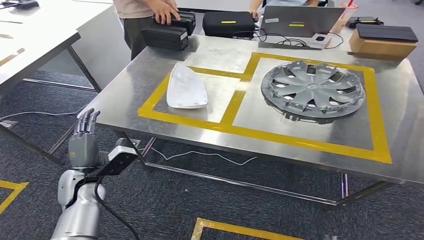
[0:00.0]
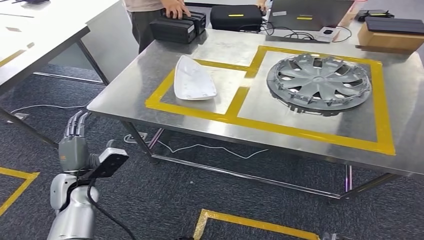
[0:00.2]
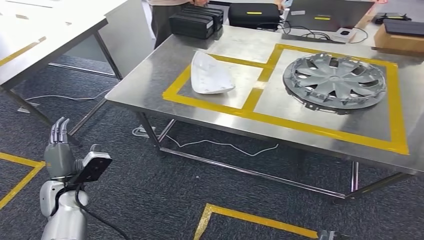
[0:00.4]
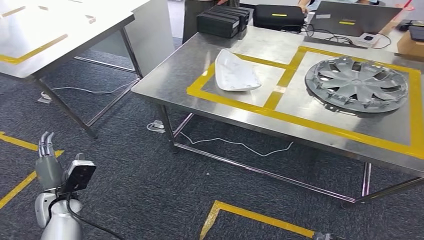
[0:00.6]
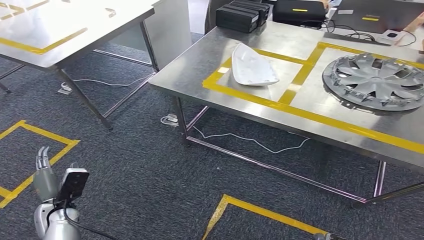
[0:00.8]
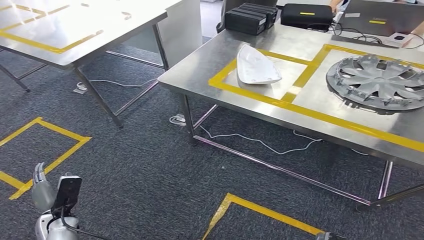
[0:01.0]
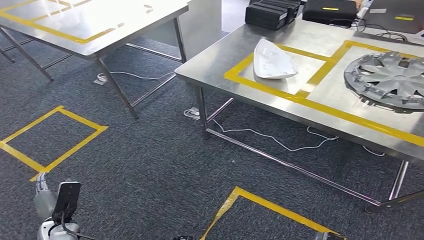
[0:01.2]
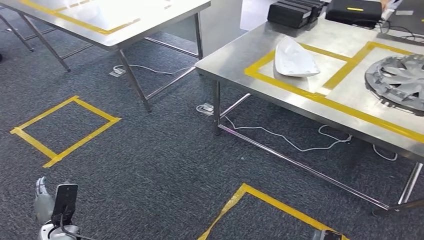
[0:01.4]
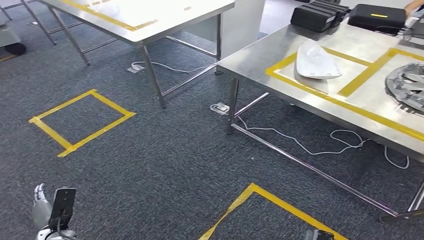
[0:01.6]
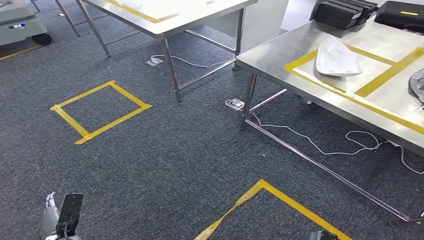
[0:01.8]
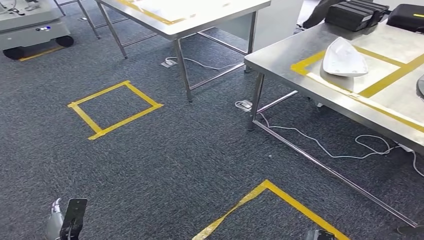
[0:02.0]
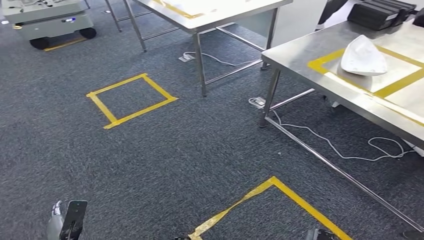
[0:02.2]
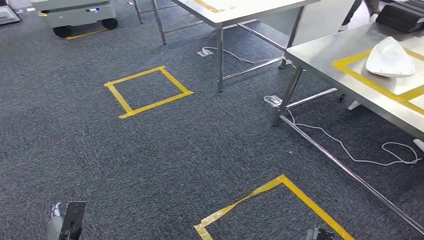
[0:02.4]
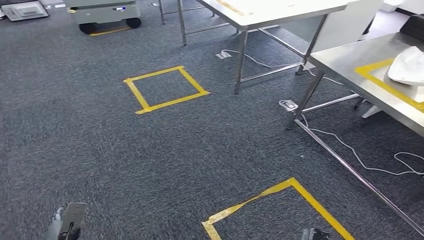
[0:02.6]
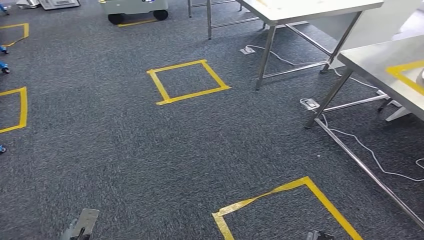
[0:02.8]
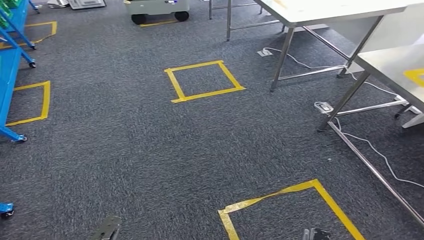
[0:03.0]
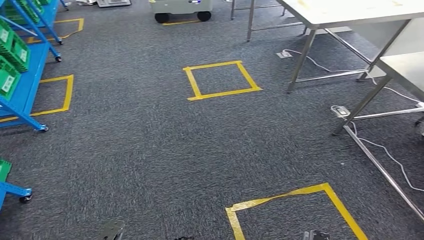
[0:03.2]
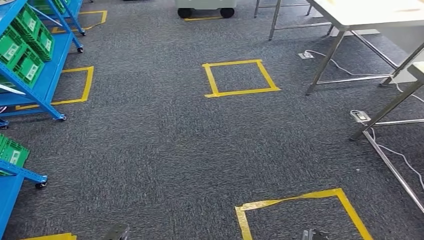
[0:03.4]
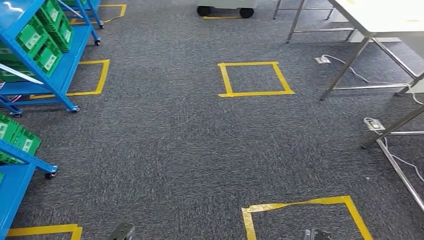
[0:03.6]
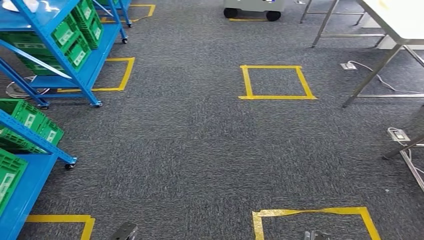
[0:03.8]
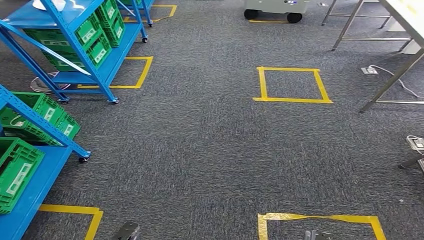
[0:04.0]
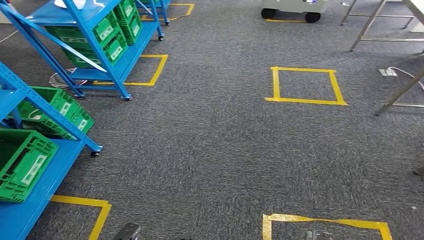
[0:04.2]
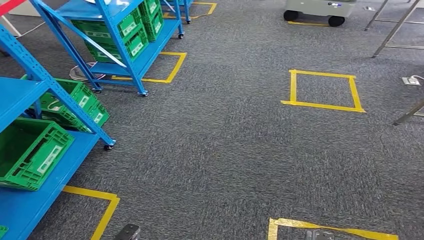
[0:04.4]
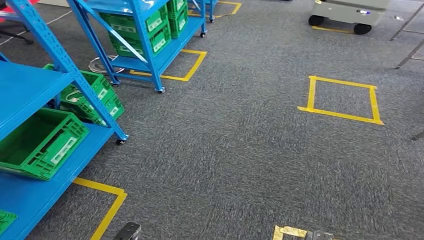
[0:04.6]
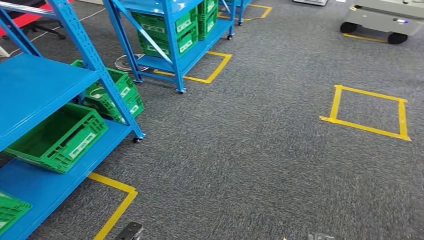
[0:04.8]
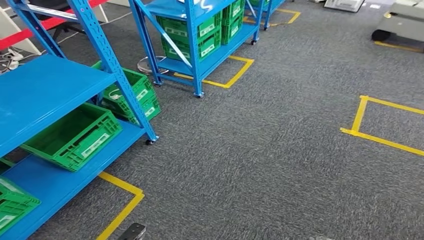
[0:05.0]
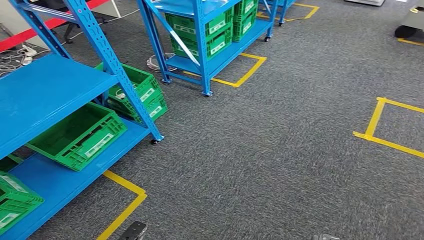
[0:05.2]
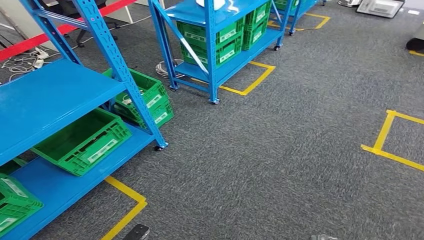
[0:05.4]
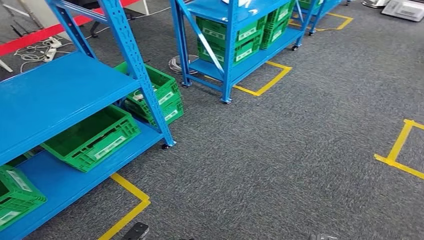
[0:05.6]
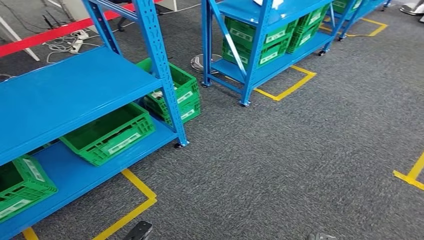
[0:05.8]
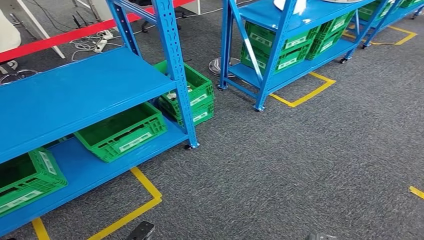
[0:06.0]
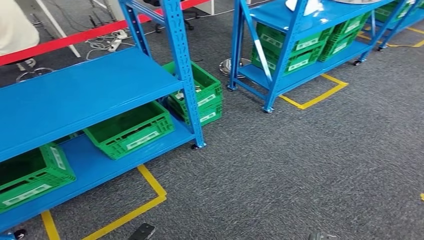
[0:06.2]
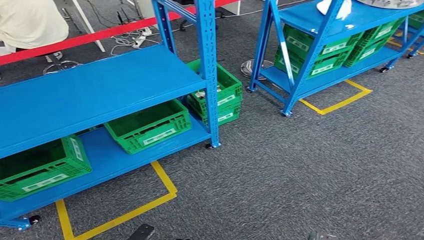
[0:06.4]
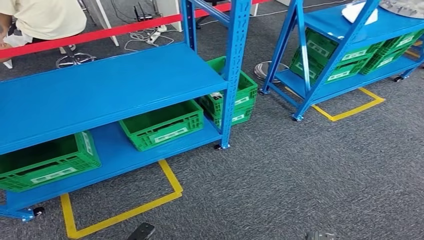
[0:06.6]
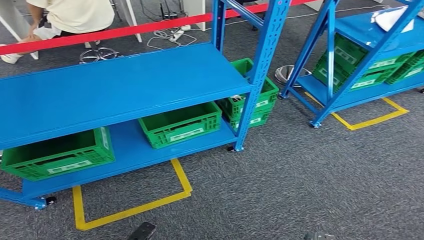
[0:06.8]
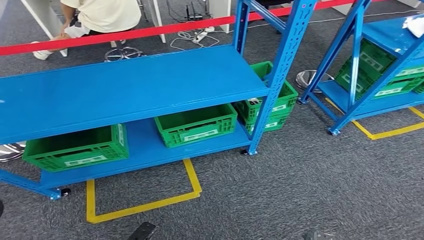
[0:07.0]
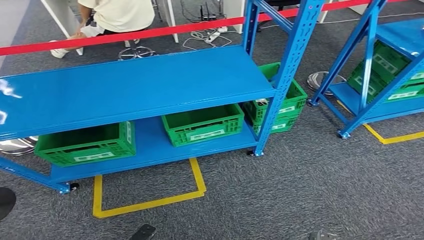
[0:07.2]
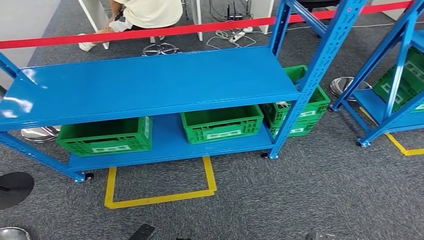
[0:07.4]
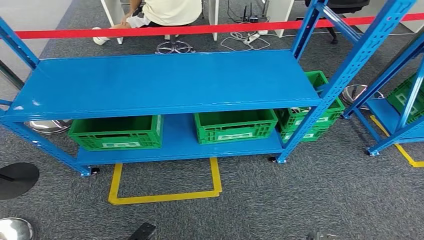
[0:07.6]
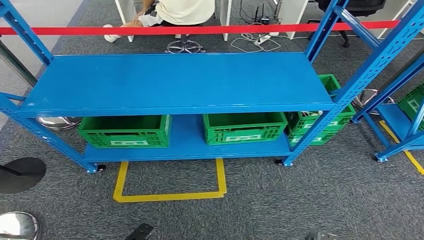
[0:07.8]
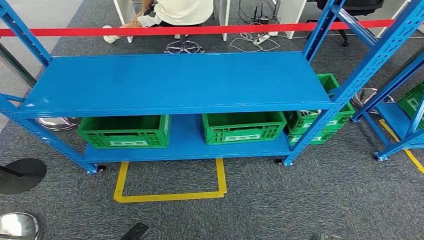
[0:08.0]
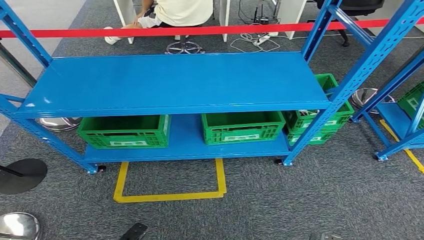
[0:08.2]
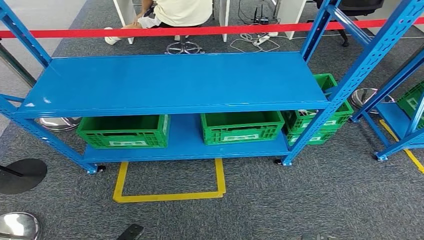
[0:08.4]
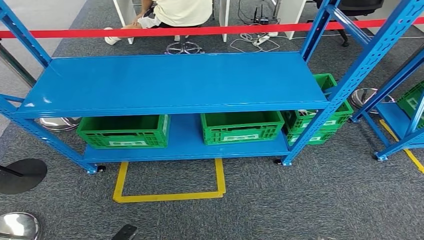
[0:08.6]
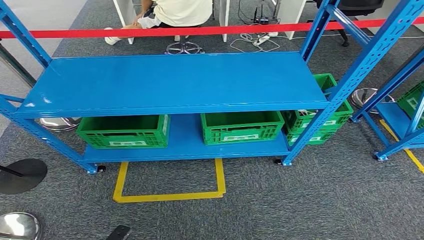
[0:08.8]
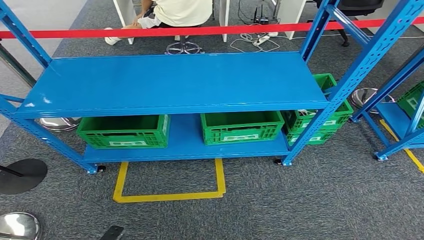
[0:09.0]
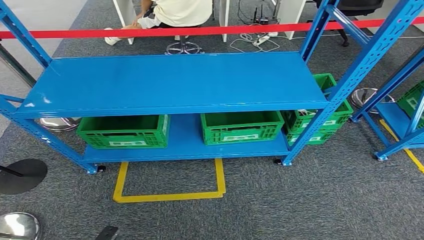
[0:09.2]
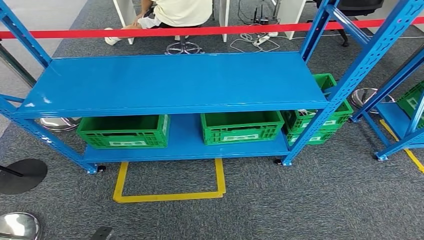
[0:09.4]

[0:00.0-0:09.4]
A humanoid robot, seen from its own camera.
Step, 0:00.6 to 0:09.4: Return to the initial position at the workbench.
0:07.8 to 0:09.4: The right hand moves roughly 5 cm; the left hand moves to the left, some 5 cm.
